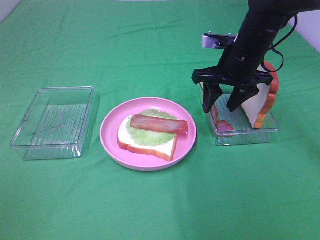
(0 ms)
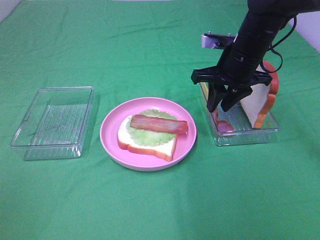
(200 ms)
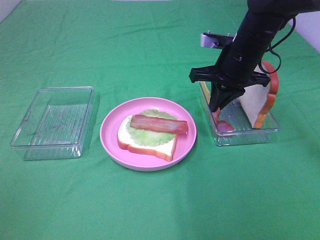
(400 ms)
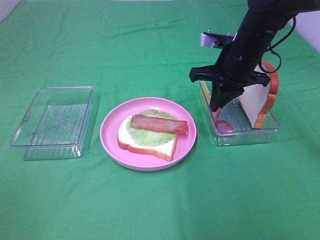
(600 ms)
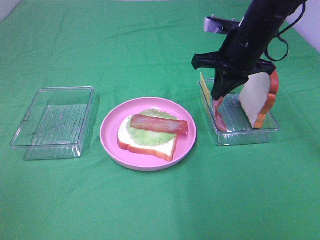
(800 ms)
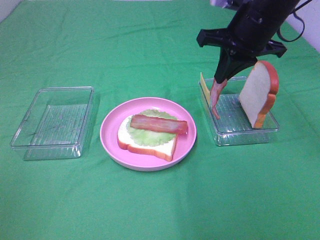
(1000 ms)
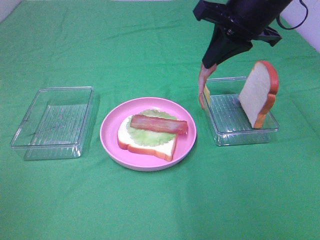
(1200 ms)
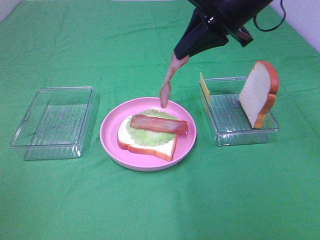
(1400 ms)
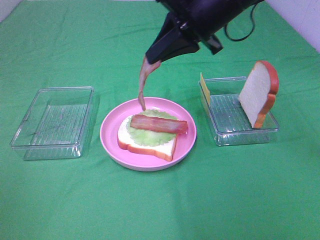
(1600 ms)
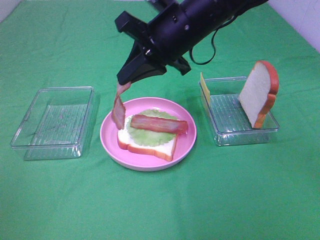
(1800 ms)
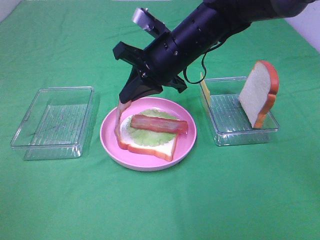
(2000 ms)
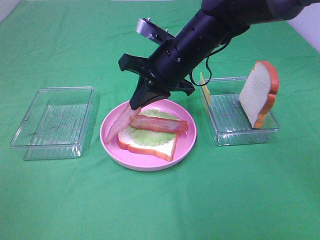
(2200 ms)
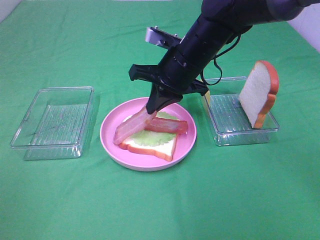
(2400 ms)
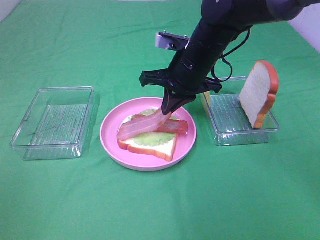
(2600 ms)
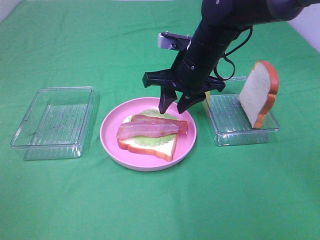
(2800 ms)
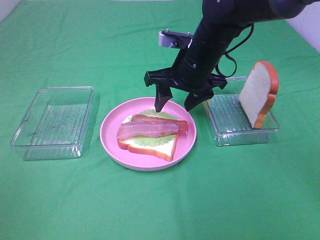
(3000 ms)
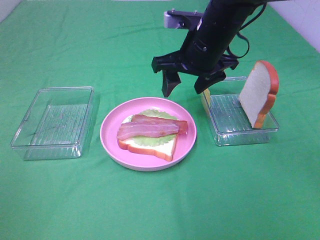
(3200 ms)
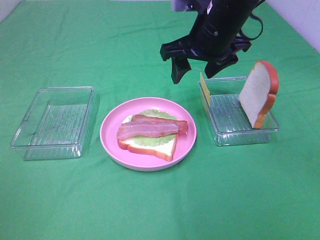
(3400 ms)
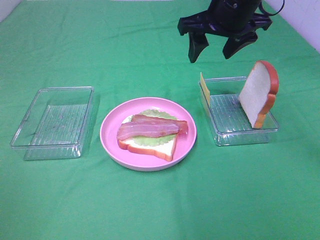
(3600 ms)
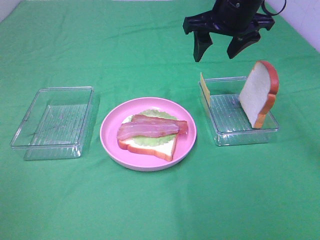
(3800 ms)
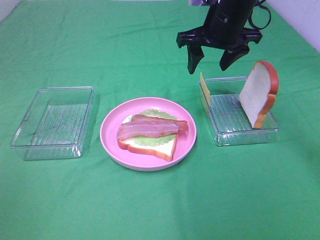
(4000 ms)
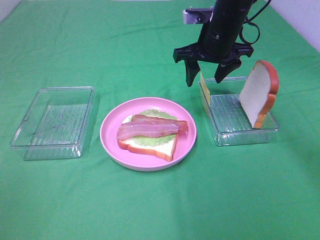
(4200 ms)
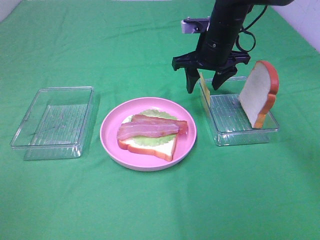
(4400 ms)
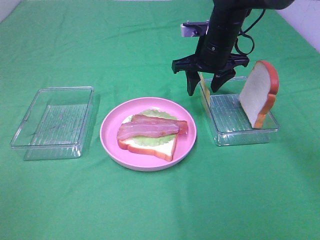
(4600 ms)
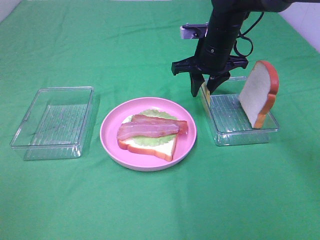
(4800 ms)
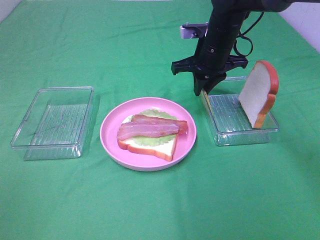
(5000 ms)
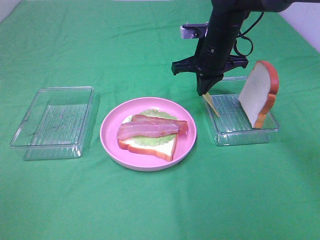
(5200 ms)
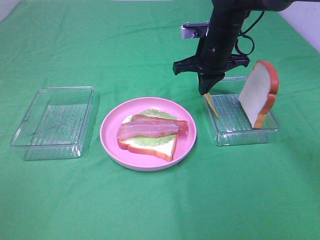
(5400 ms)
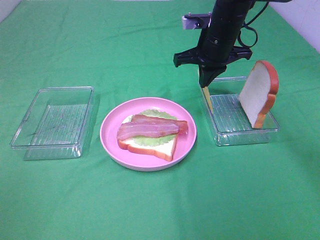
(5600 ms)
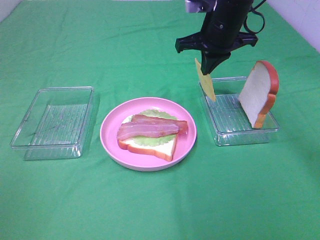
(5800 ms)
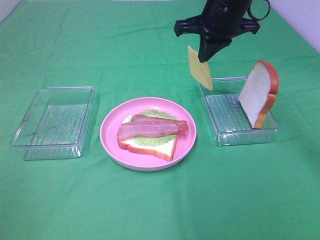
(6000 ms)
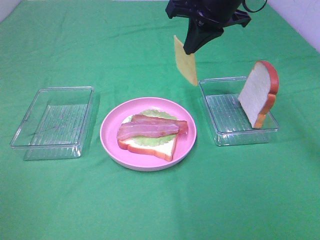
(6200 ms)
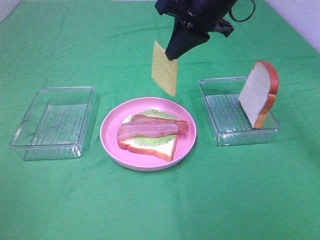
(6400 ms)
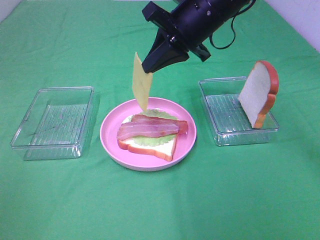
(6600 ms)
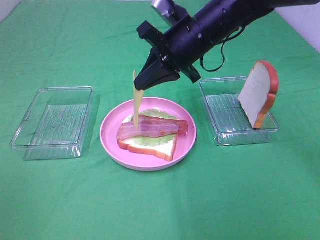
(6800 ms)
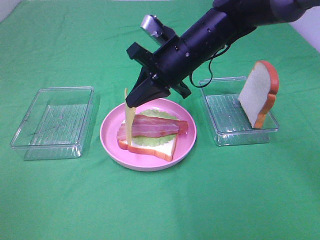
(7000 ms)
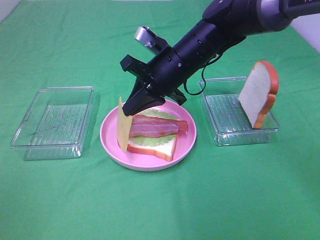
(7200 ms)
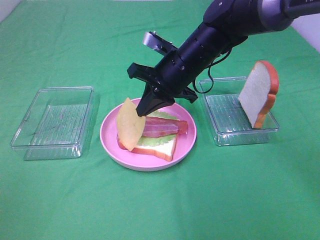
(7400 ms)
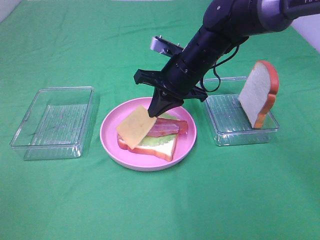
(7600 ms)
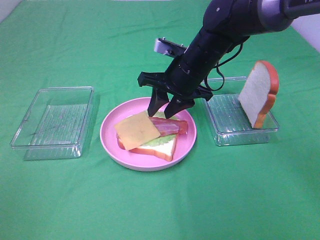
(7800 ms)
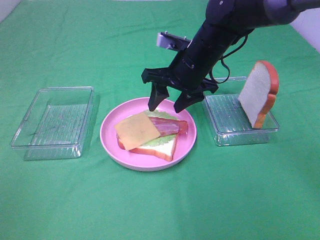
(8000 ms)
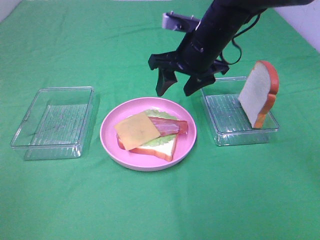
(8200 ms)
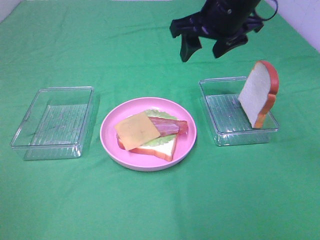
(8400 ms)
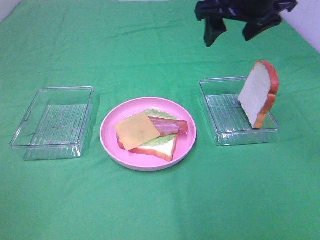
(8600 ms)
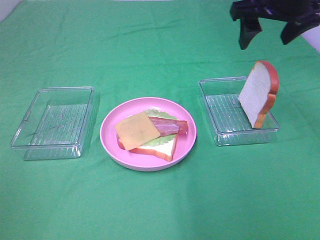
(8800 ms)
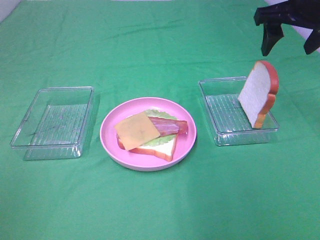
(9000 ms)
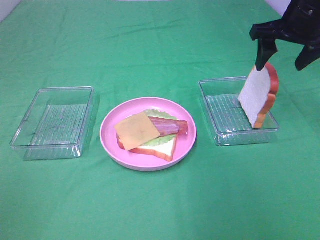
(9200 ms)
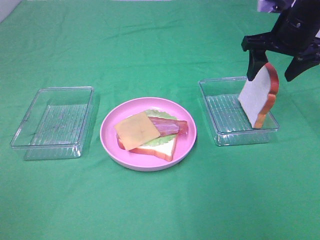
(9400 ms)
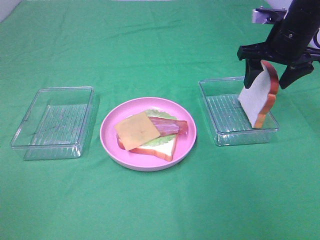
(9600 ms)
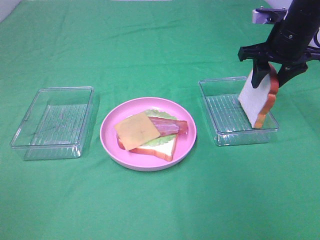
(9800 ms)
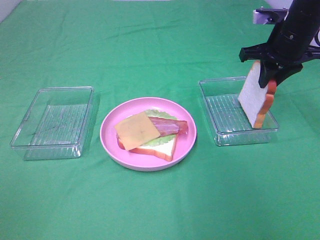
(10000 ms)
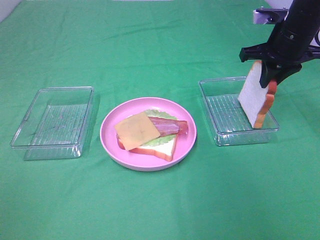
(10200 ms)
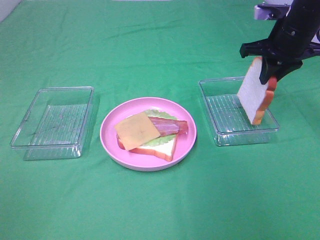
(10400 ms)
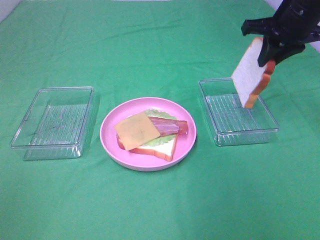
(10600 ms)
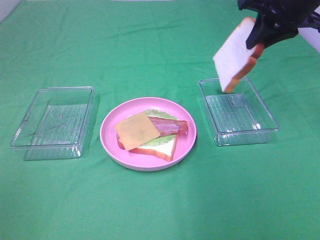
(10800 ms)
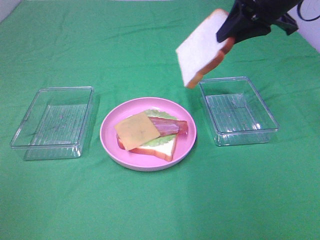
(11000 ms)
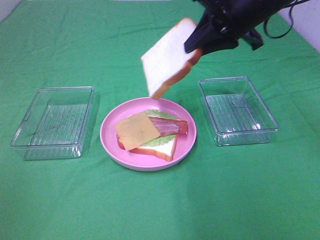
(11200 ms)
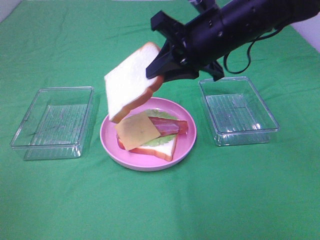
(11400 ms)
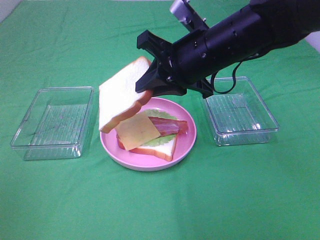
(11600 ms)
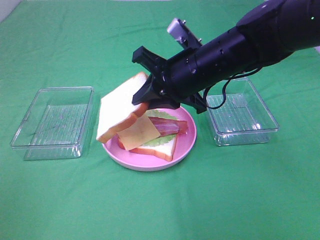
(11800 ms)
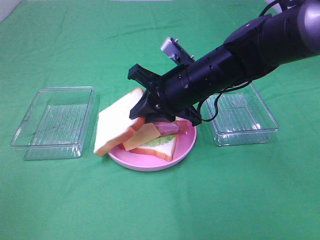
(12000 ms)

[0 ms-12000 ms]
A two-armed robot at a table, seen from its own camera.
Task of the whole recording: Make sandwiches.
Step, 1000 ms to 3000 ms: Right hand:place bacon on bacon.
Step, 3200 ms to 5200 ms: Right hand:grab the cheese slice.
Step, 5400 ms to 8200 ms: Right hand:place the cheese slice on top of the bacon.
Step, 8400 ms to 10200 ms: Right hand:grab the bread slice.
0 ms to 1600 ms: The right gripper goes roughly 10 cm upward and to the left, and closes.
1600 ms to 3000 ms: The right gripper shifts about 10 cm downward, and opens up.
3000 ms to 4400 ms: The right gripper travels forward by approximately 5 cm, and travels upward and back again, roughly 10 cm each way.
4400 ms to 6000 ms: The right gripper travels upward by about 10 cm, and closes up.
6000 ms to 7600 ms: The right gripper moves downward and to the left, approximately 10 cm.
7600 ms to 9000 ms: The right gripper shifts some 20 cm to the right and upward, and opens up.
9000 ms to 10400 ms: The right gripper moves downward, roughly 5 cm, and closes.
10400 ms to 12000 ms: The right gripper goes approximately 20 cm to the left and backward.

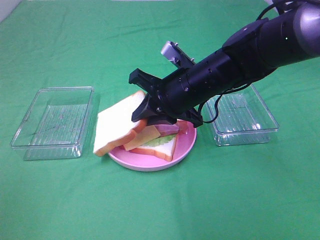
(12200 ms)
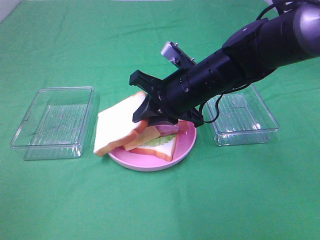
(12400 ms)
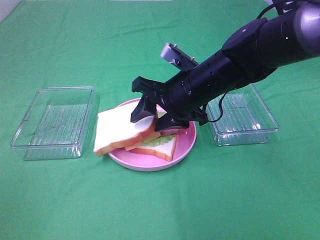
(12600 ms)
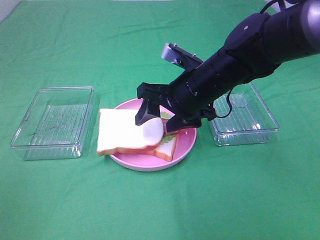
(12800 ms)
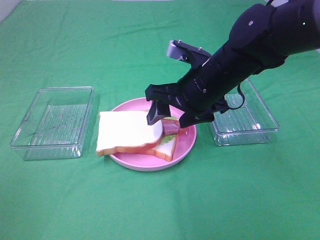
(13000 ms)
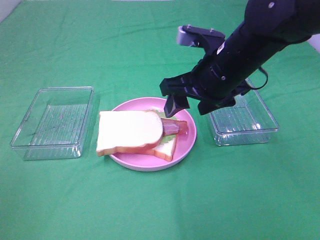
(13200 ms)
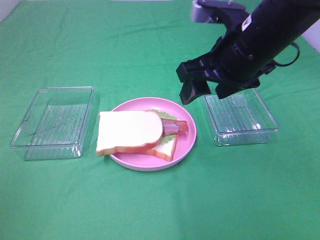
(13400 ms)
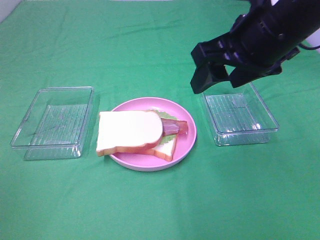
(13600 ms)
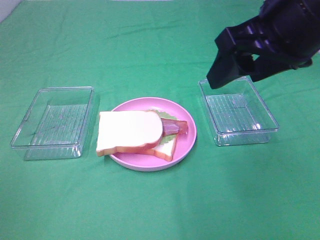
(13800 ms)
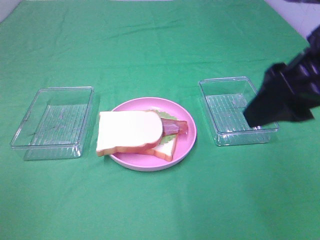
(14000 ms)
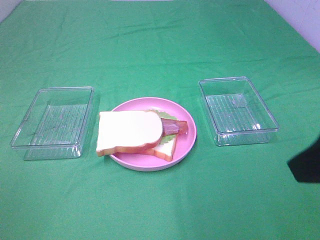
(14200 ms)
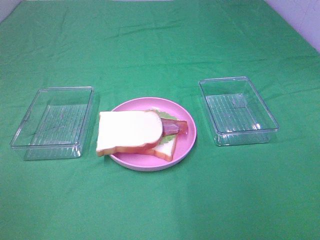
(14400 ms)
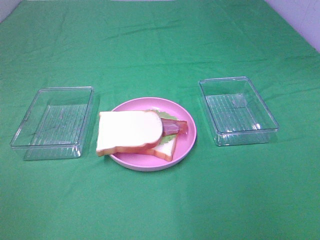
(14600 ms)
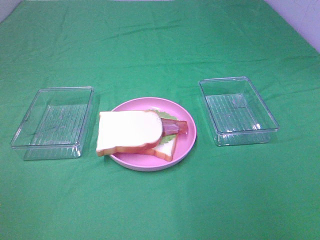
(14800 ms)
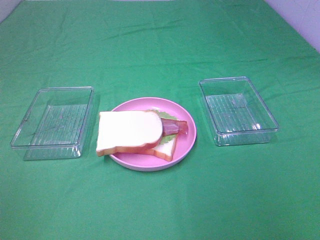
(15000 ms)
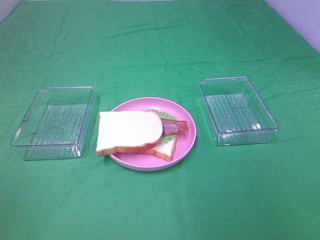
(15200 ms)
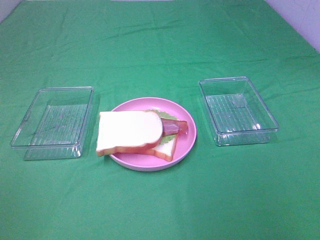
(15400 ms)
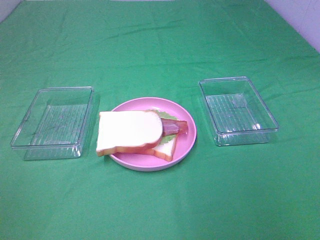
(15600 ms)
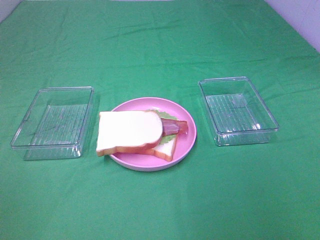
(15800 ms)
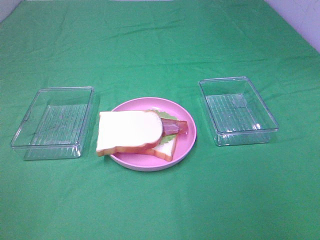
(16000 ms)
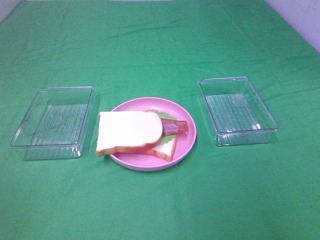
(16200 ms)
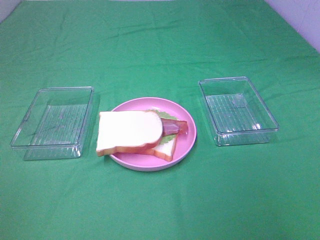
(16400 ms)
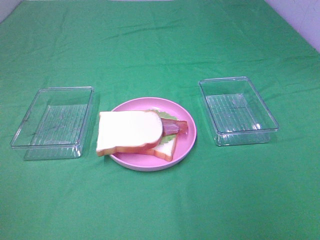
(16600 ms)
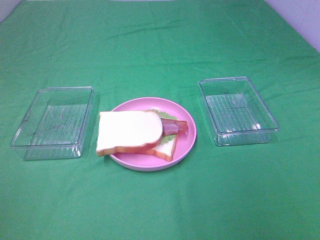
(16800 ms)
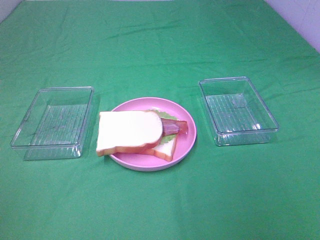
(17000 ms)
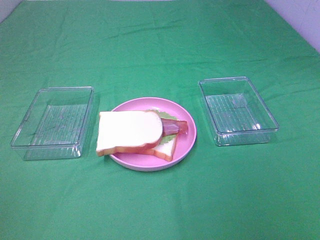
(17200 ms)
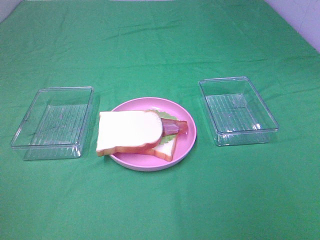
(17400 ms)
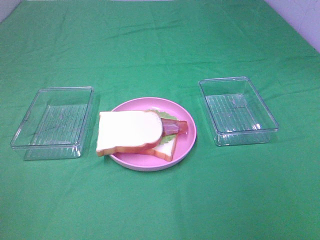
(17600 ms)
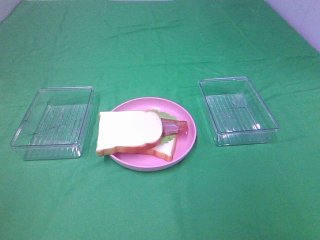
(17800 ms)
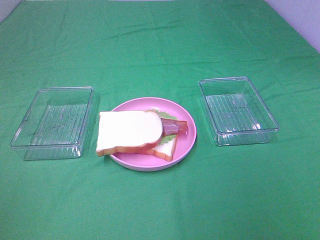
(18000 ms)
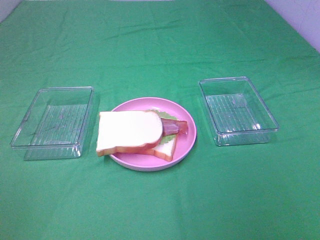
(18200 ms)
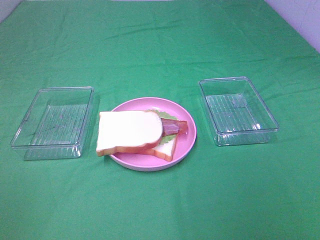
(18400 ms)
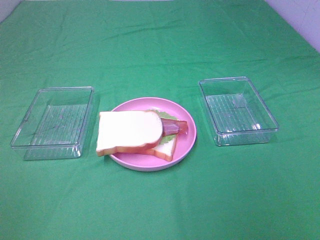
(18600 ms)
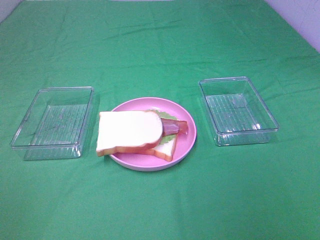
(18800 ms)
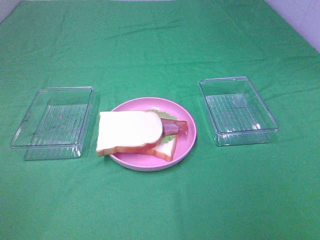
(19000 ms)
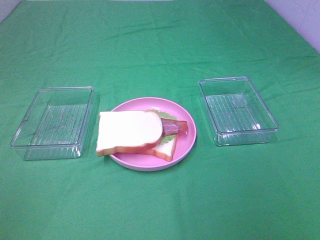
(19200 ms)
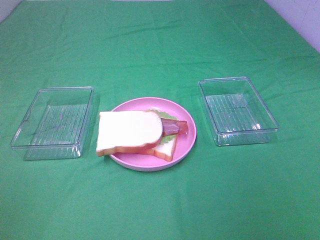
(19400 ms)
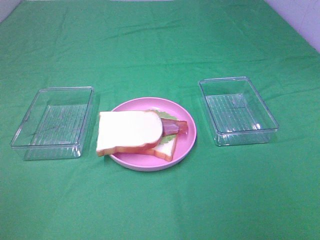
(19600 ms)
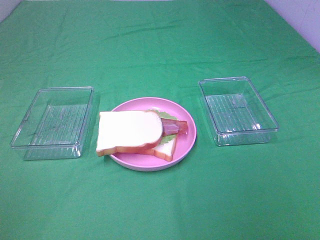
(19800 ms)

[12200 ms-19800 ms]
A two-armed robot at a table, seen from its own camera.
Task of the whole recording: Make sandwiches.
12200 ms to 13800 ms: The right gripper moves upward, backward and to the right, roughly 20 cm, and opens up.
13800 ms to 15200 ms: The right gripper travels backward and to the right by roughly 25 cm.
18200 ms to 19800 ms: The two grippers keep their place.

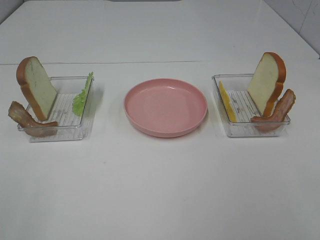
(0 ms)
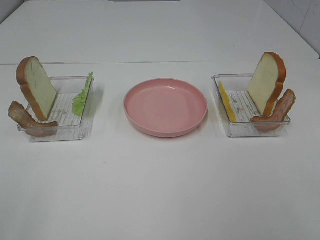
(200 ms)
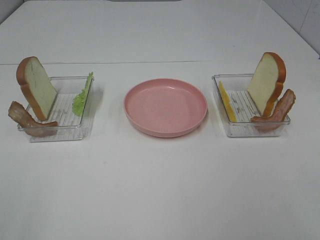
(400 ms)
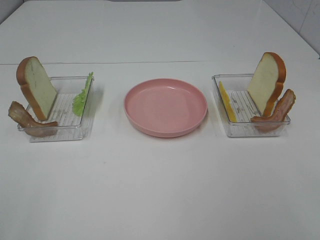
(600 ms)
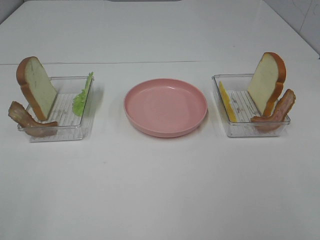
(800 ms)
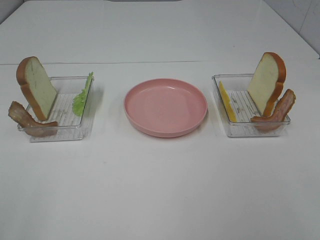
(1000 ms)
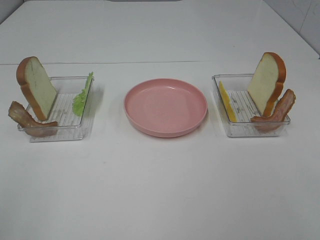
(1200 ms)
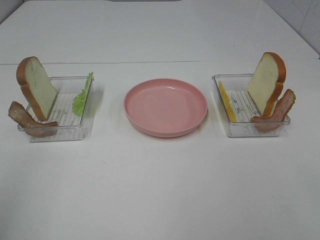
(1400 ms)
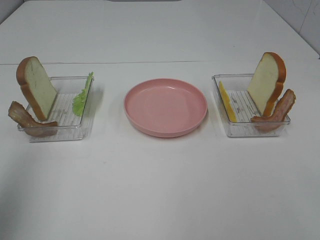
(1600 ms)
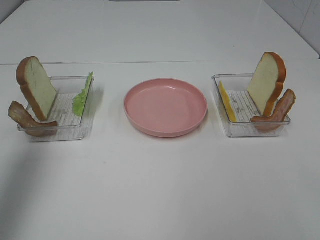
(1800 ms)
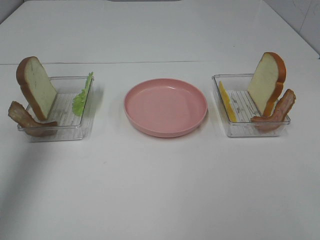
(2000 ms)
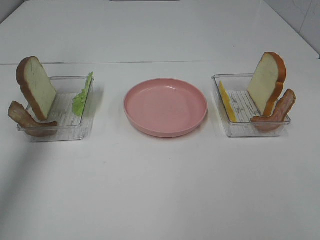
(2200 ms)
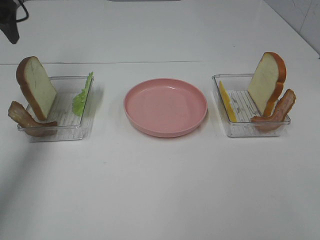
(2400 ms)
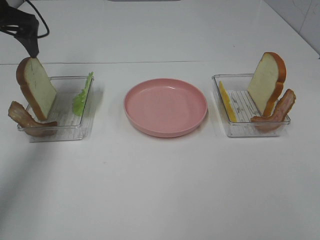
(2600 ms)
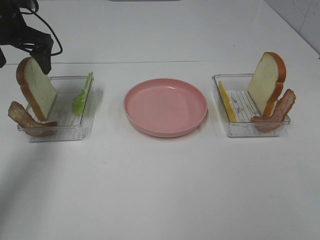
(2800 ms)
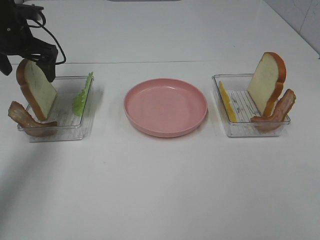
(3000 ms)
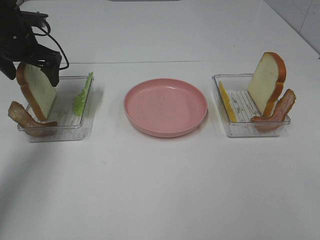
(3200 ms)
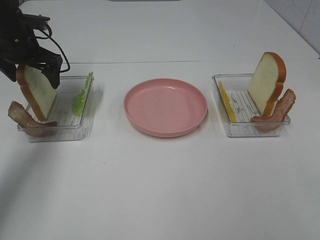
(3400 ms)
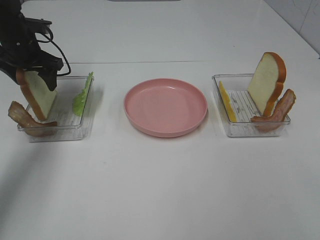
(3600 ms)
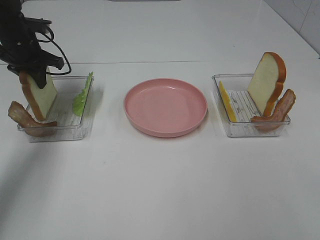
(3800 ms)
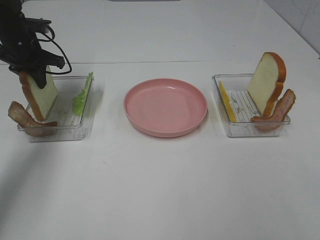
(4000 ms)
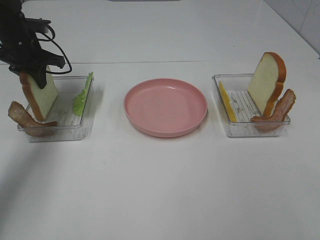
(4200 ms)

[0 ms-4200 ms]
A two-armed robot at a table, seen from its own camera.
Task of the whole recording: Make sandwiches.
Step, 0 ms to 3800 ms: Left hand:grab the bread slice.
1400 ms to 2800 ms: The left gripper shifts some 40 cm forward.
2800 ms to 4200 ms: The left gripper is displaced downward by about 5 cm, and closes.
